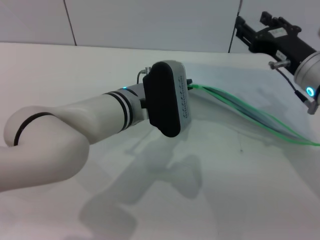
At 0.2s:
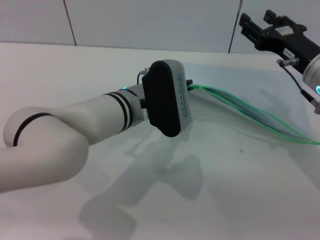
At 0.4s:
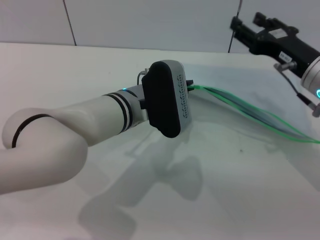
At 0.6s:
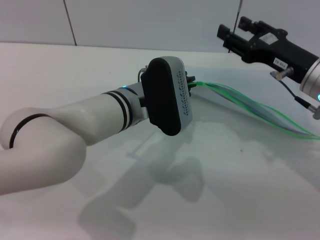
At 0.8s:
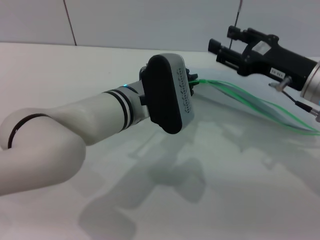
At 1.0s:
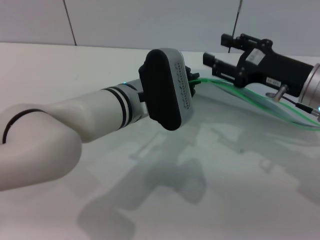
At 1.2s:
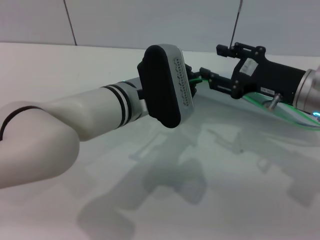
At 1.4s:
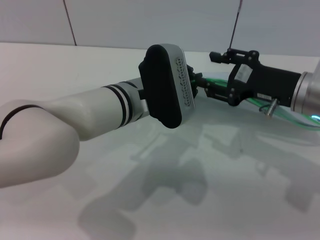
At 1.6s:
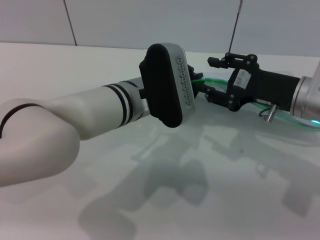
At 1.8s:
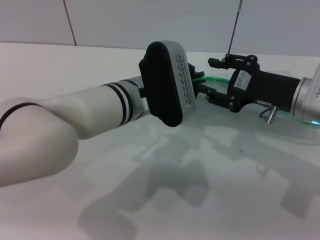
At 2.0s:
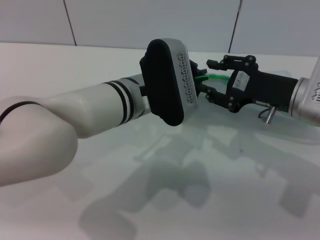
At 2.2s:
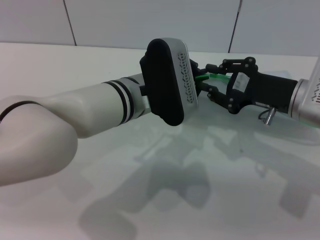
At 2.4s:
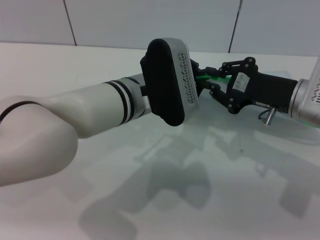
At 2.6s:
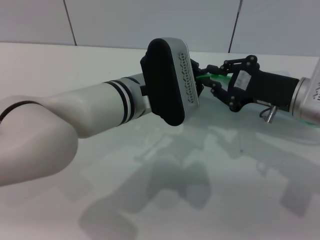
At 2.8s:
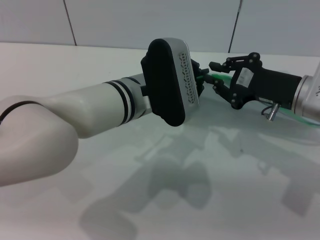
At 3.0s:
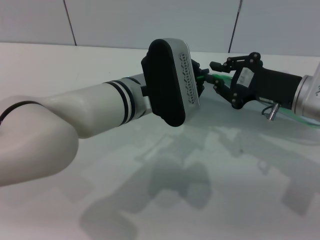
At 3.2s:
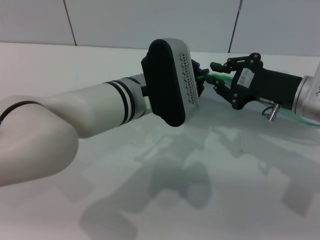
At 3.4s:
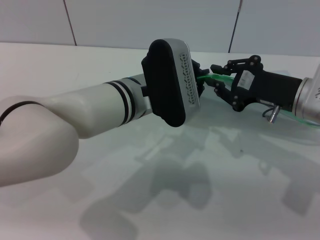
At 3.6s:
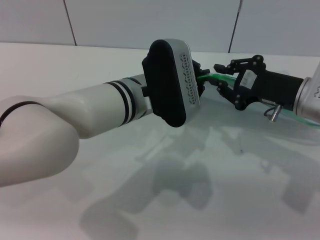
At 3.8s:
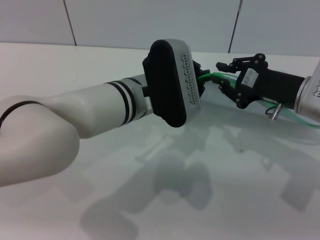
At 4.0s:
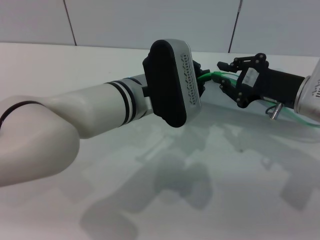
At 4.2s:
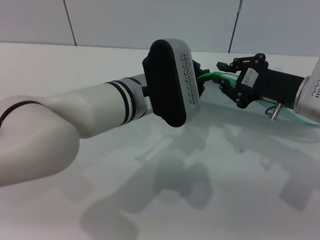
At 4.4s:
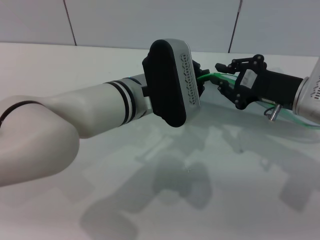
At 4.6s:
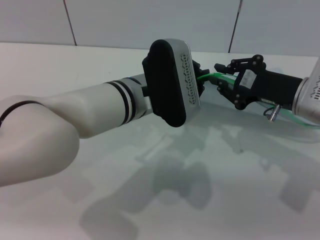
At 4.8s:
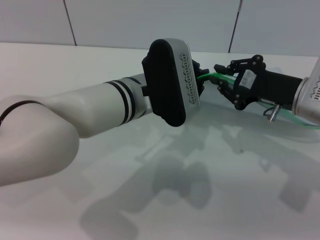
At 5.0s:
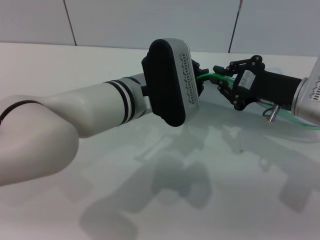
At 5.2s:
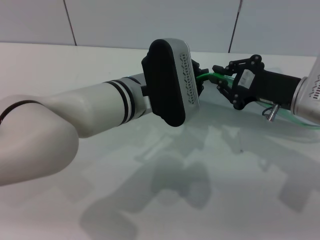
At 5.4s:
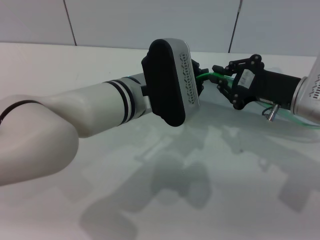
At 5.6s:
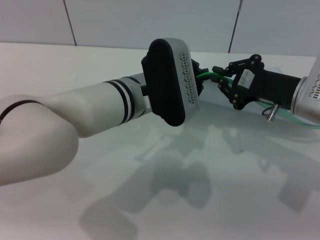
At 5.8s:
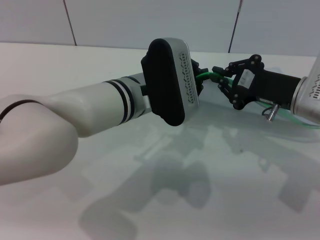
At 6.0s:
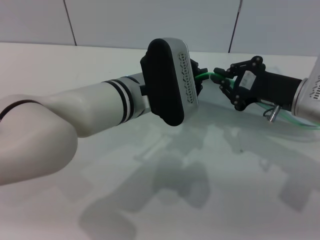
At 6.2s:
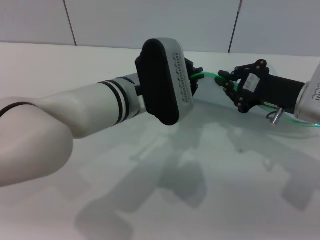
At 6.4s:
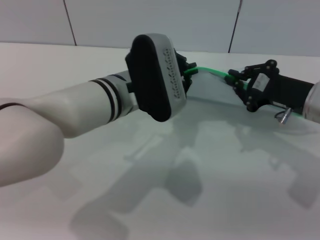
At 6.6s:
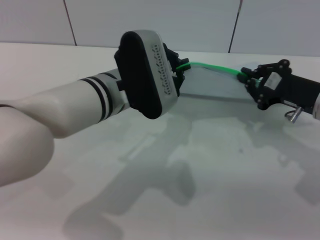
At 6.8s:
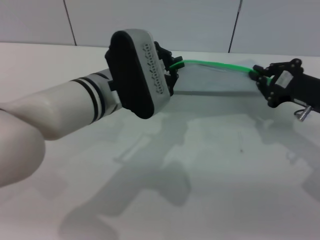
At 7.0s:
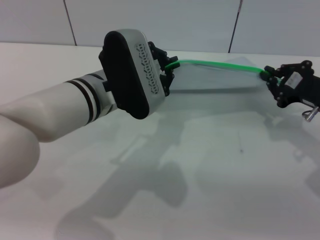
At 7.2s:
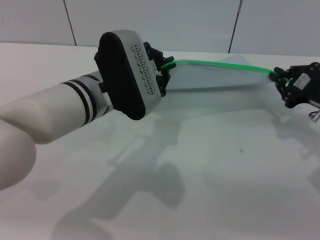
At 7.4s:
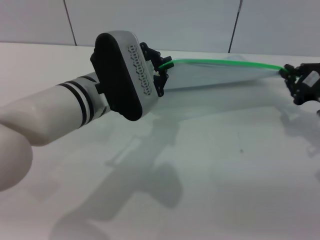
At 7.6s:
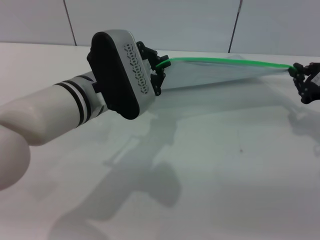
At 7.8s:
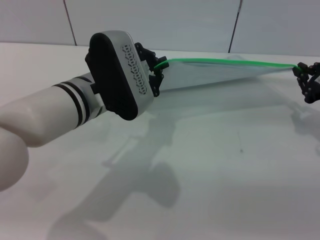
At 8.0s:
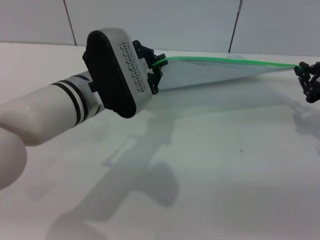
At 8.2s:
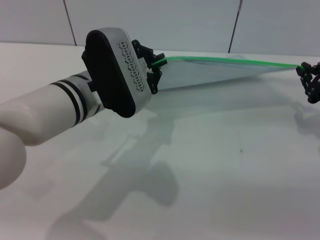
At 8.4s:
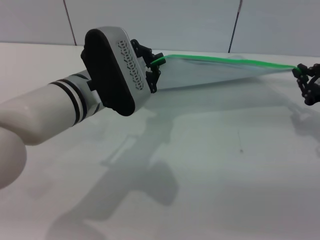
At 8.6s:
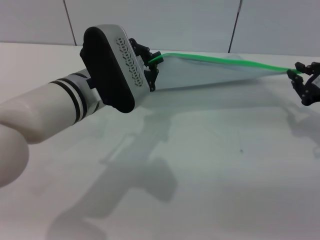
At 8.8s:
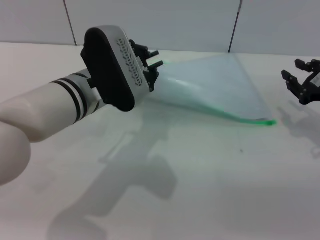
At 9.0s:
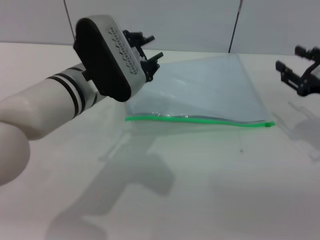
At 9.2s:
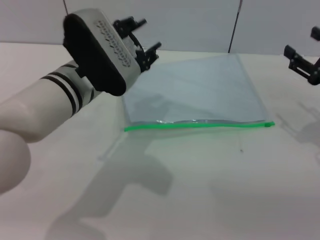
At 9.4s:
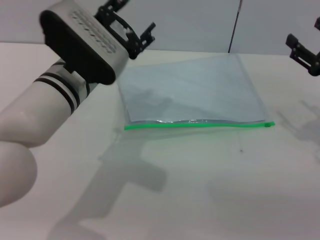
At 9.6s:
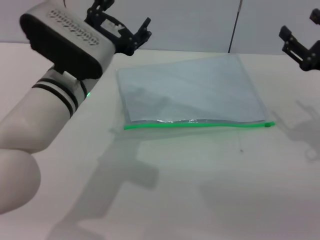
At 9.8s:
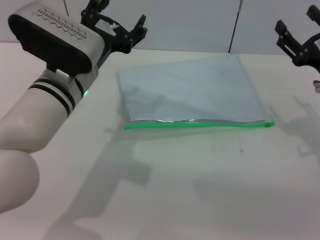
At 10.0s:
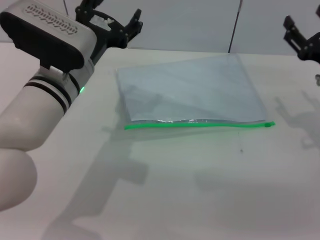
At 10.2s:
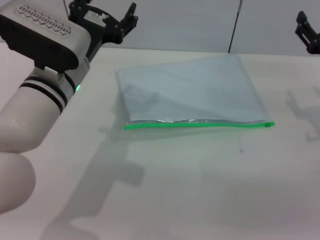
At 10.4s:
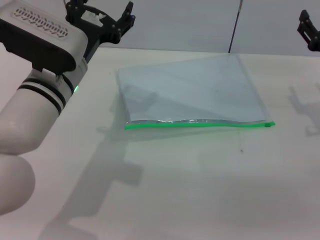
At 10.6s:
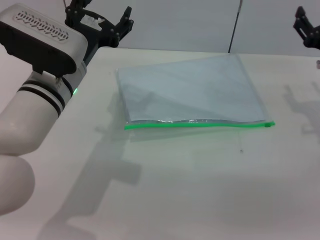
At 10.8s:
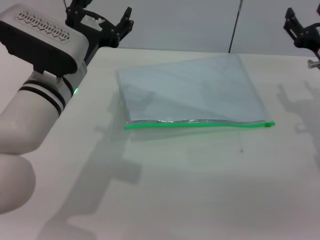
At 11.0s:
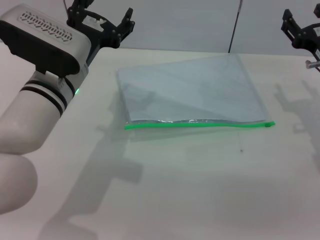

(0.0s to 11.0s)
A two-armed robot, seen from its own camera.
Step, 1.0s - 8.6s: Pulling up the zipper on the transparent plastic bag with the right gripper to close it.
Step, 8.8s - 9.4s: Place the transparent plastic bag.
1.6s - 3.2s: The right gripper closes up.
3.2s - 4.8s: The two grippers keep their place.
4.8s - 6.2s: Both grippers stay about where they are.
6.2s - 7.8s: The right gripper shifts roughly 10 cm to the right.
7.8s - 9.4s: The left gripper opens. The right gripper opens up.
9.4s - 11.0s: The left gripper opens its fingers; the right gripper ends up about 5 cm from where it was.
